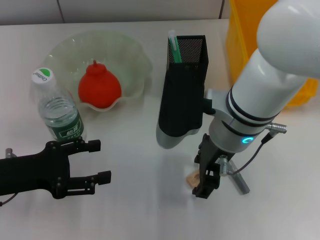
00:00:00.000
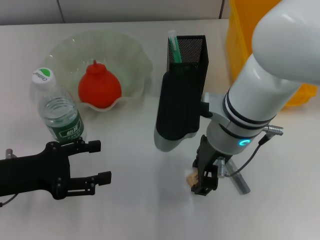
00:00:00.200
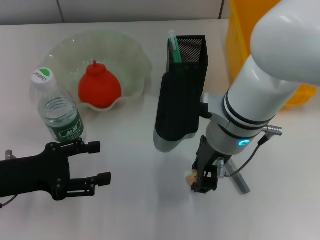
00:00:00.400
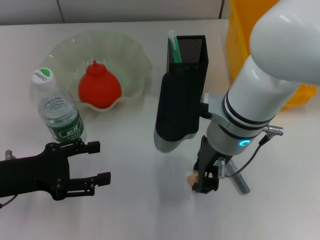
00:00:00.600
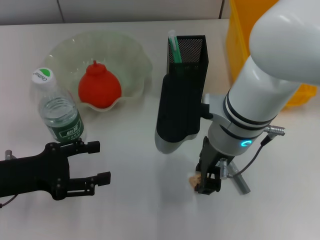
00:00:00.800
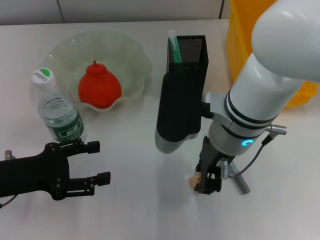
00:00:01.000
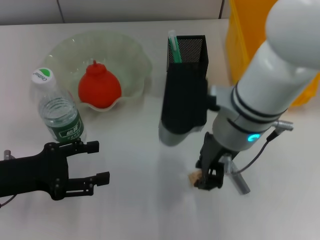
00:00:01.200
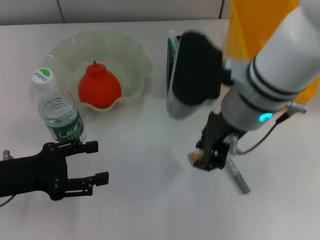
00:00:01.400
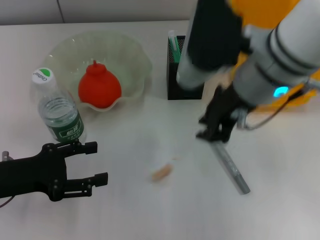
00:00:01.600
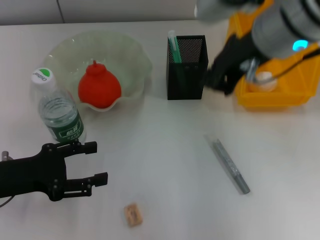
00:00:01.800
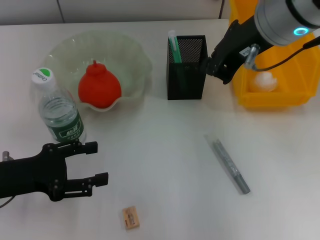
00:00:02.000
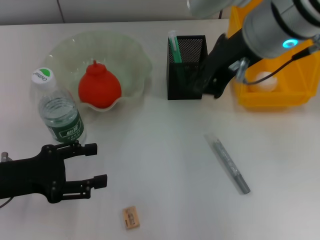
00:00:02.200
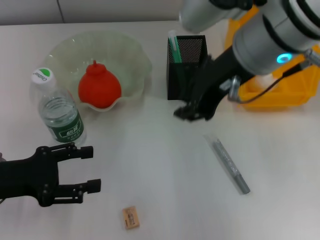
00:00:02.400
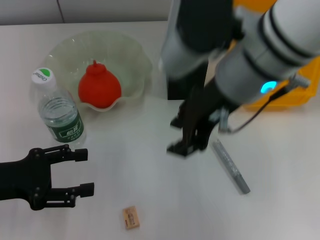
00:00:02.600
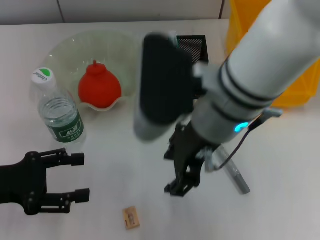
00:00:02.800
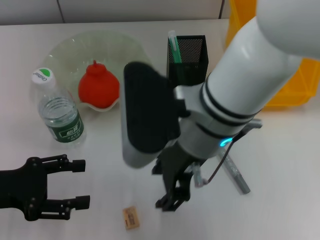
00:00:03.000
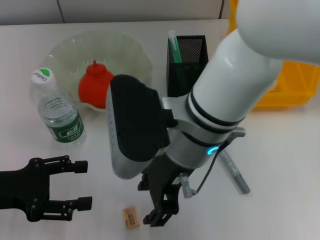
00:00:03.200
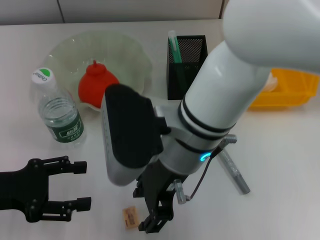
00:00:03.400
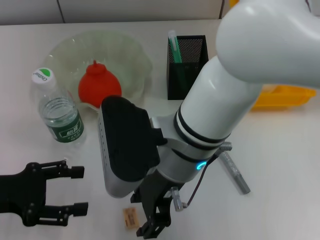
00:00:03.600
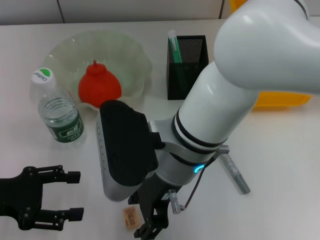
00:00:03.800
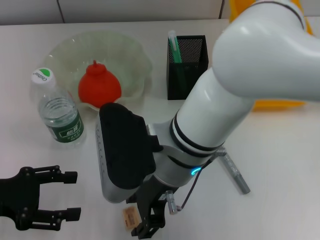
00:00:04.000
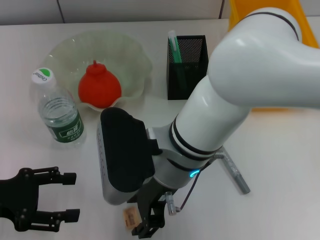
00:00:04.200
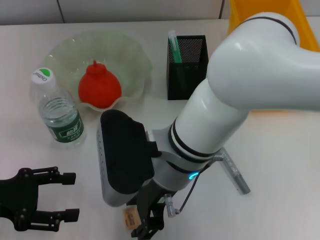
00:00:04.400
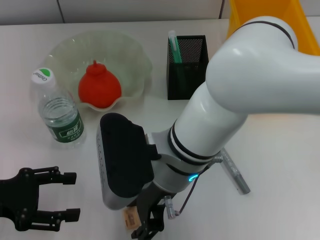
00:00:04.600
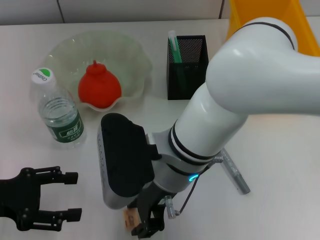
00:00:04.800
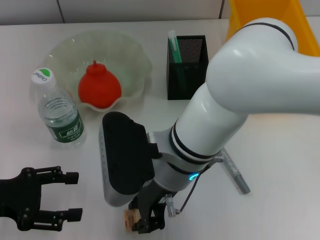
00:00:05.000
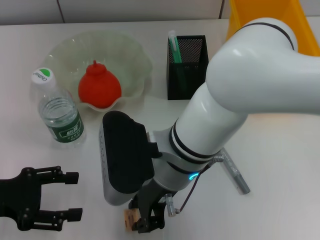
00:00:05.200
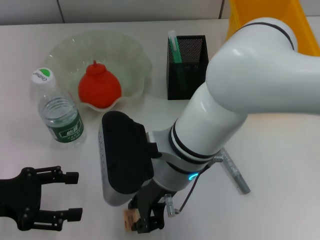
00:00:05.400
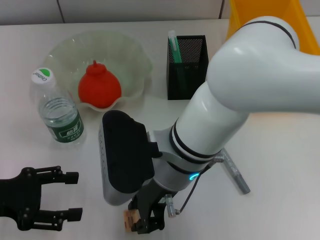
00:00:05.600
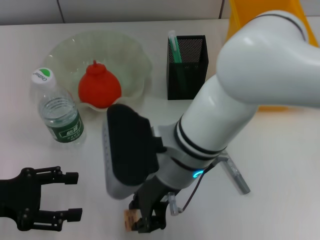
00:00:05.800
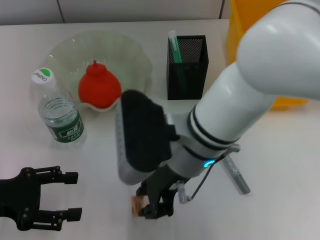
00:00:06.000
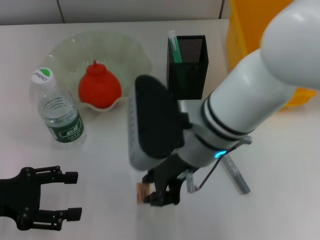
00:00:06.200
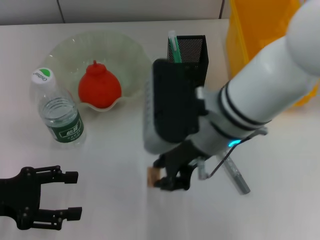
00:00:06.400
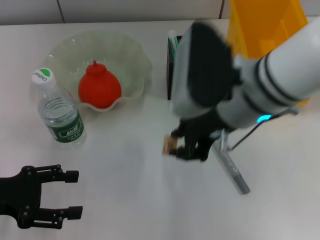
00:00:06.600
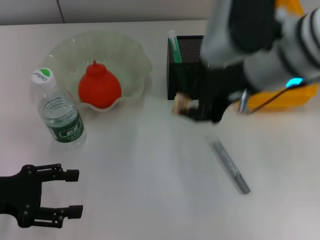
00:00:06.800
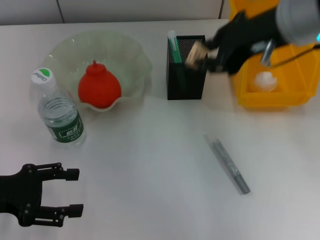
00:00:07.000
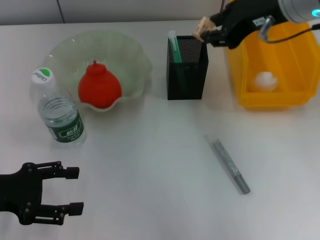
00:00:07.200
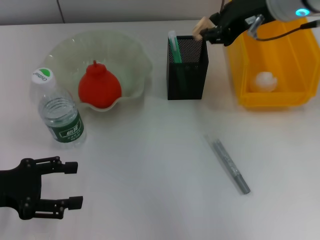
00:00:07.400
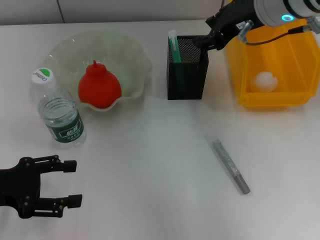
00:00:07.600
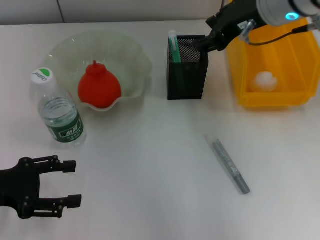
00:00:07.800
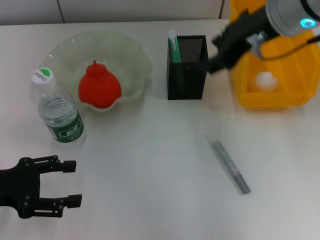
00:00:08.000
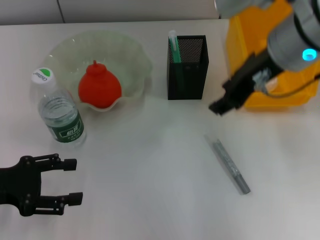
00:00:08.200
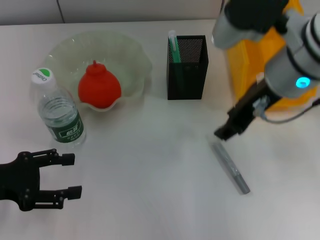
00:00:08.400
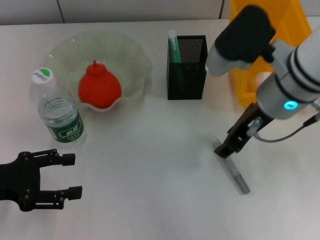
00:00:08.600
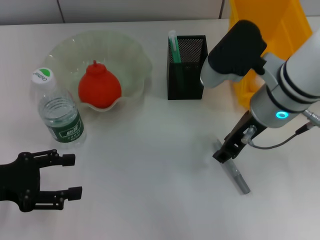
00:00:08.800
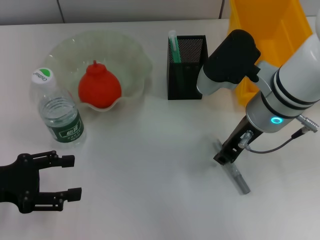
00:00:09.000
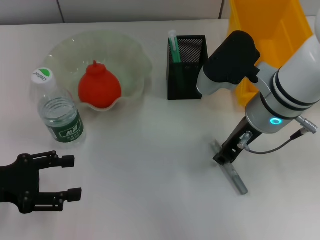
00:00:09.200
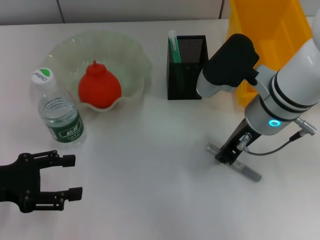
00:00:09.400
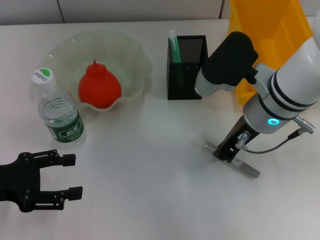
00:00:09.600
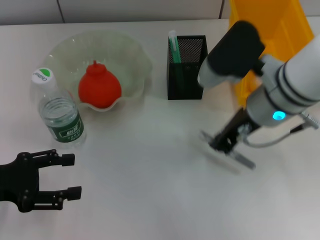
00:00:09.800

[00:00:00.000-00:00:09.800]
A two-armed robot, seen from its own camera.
Step, 00:00:00.000 to 00:00:05.400: Grab the eraser with the right hand.
Step, 00:00:05.600 to 00:00:07.400: Put the eraser into the pen holder with the right hand.
Step, 00:00:07.600 to 00:00:09.200: Grab the gray glue with the right hand.
00:00:00.000 to 00:00:01.400: The right gripper ends up approximately 5 cm from where it was, and closes its fingers.
00:00:02.800 to 00:00:04.200: The right gripper goes some 5 cm downward.
00:00:04.200 to 00:00:05.600: The right gripper closes up.
00:00:05.600 to 00:00:07.000: The right gripper is displaced to the right, upward and forward by about 20 cm.
00:00:07.000 to 00:00:08.400: The right gripper shifts some 5 cm downward.
00:00:08.400 to 00:00:09.800: The right gripper closes up.

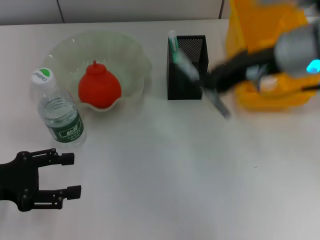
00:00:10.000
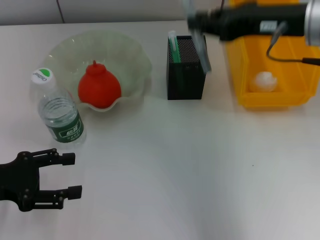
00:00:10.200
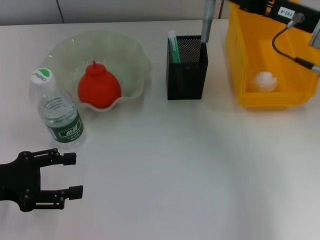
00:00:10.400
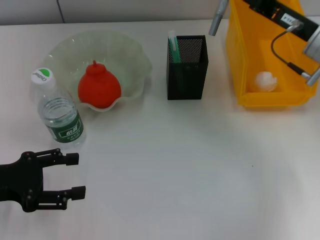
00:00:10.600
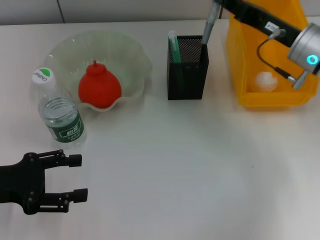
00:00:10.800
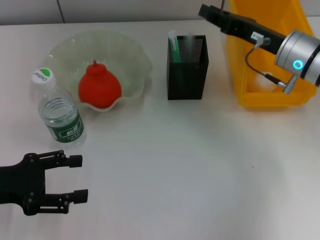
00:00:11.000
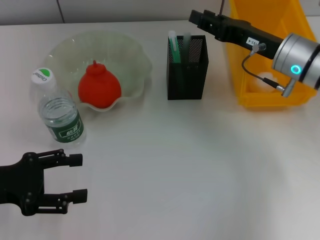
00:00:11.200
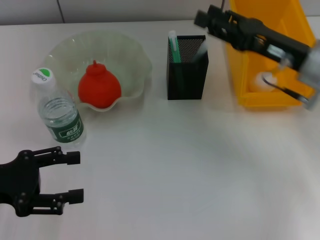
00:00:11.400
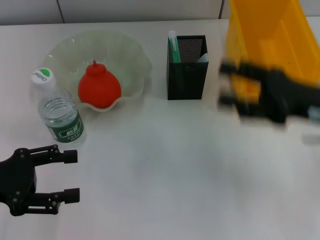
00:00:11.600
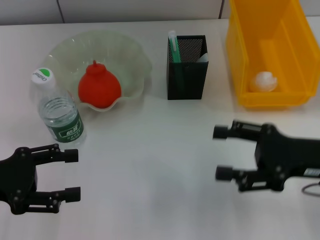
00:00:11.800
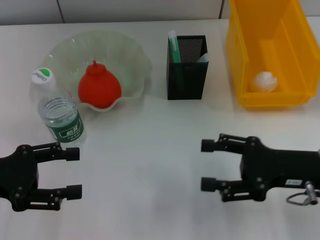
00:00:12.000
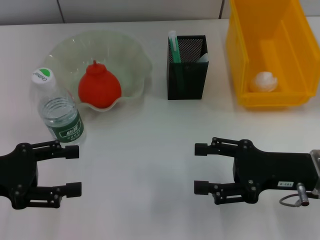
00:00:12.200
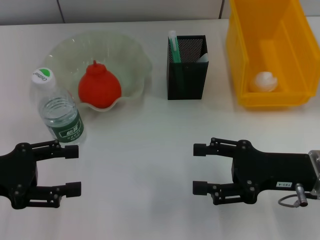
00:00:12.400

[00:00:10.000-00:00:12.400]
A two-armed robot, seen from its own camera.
Step, 00:00:10.000 to 00:00:11.400: Place the gray glue into the pen holder with the right hand.
00:00:10.000 to 00:00:11.200: The right gripper is displaced downward and forward by about 15 cm.
00:00:11.200 to 00:00:12.400: The right gripper goes approximately 15 cm backward, and opens up.
